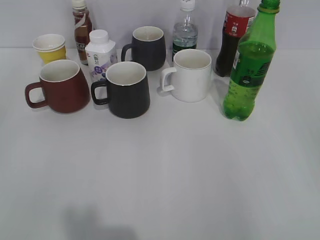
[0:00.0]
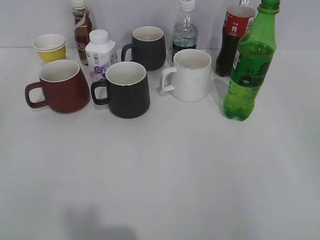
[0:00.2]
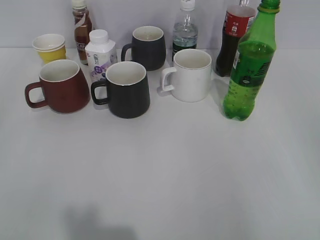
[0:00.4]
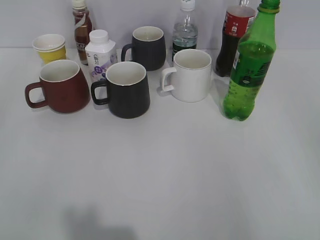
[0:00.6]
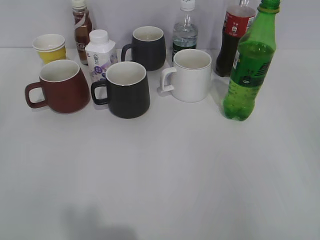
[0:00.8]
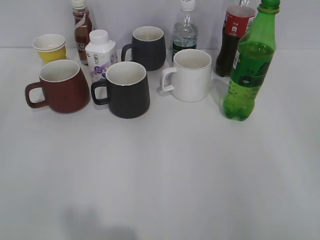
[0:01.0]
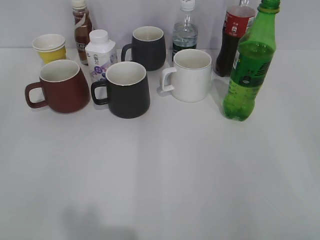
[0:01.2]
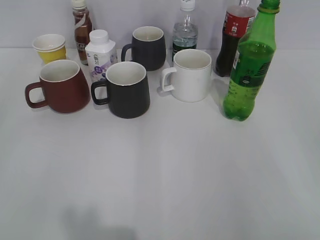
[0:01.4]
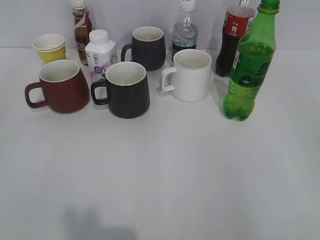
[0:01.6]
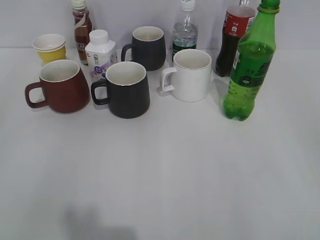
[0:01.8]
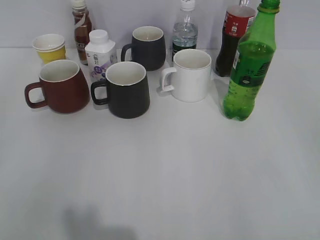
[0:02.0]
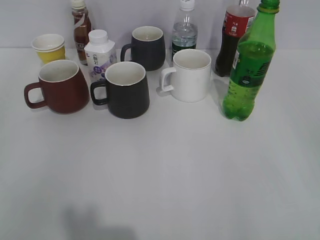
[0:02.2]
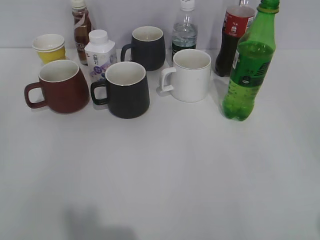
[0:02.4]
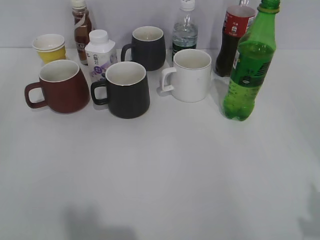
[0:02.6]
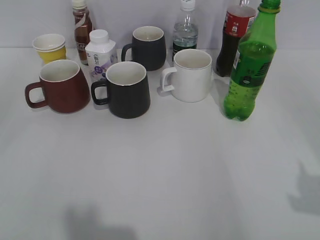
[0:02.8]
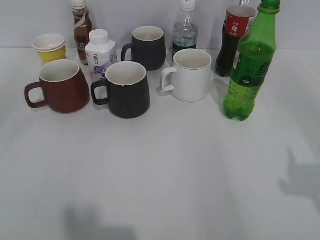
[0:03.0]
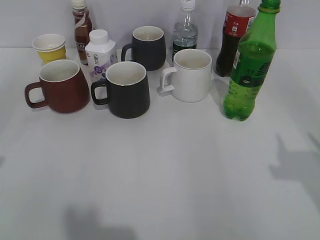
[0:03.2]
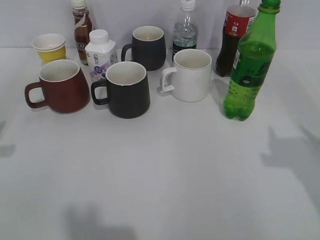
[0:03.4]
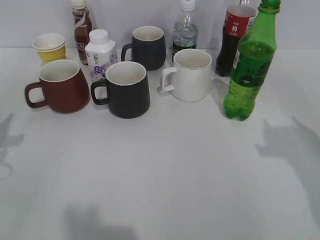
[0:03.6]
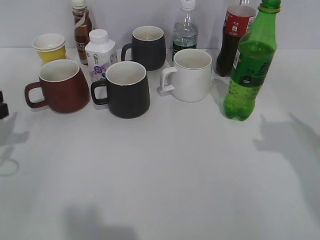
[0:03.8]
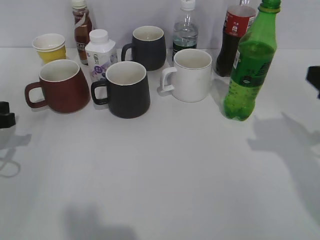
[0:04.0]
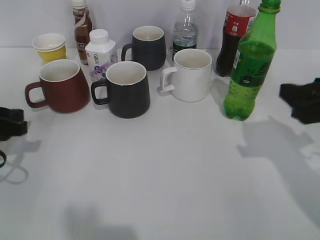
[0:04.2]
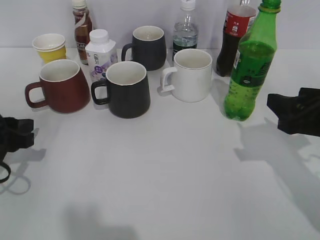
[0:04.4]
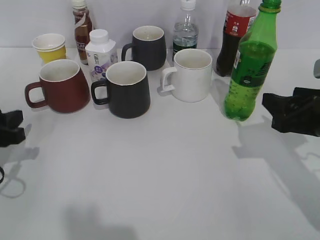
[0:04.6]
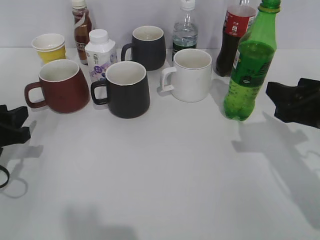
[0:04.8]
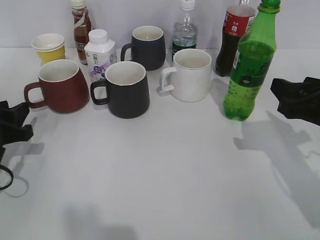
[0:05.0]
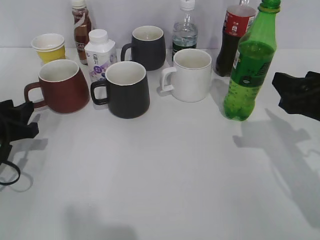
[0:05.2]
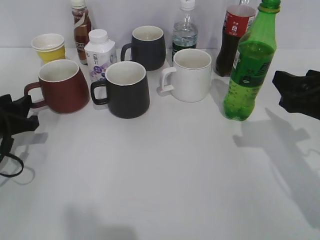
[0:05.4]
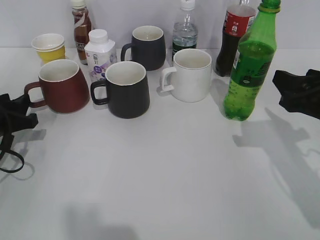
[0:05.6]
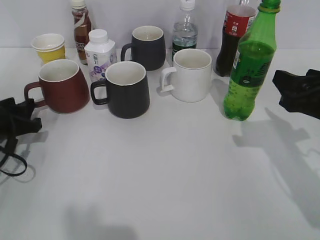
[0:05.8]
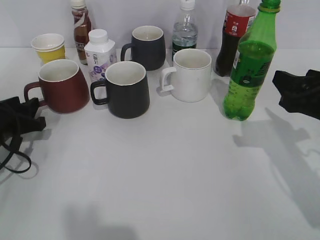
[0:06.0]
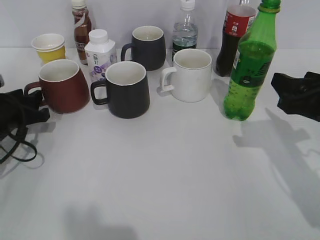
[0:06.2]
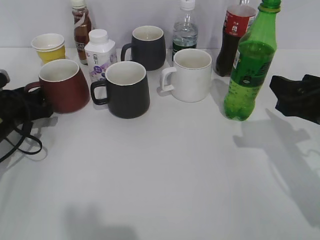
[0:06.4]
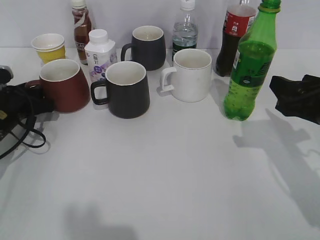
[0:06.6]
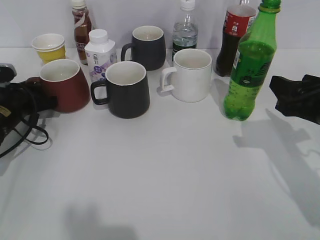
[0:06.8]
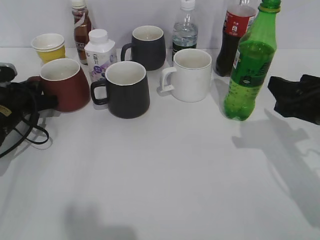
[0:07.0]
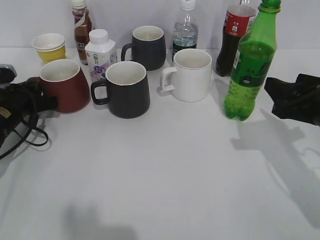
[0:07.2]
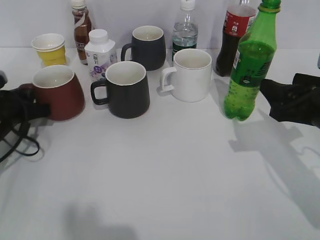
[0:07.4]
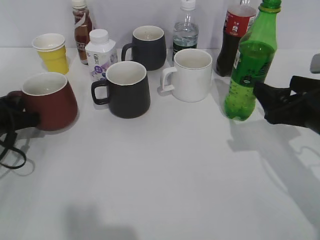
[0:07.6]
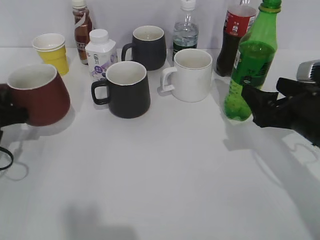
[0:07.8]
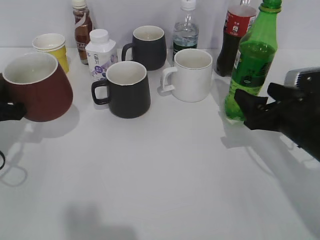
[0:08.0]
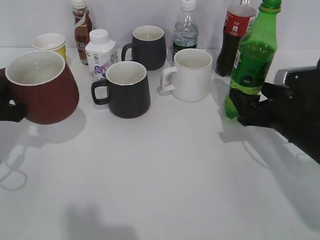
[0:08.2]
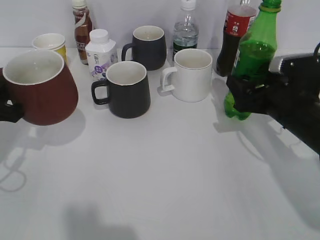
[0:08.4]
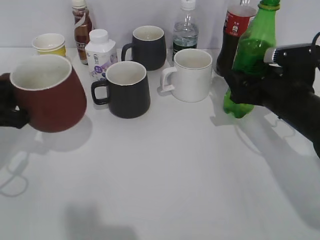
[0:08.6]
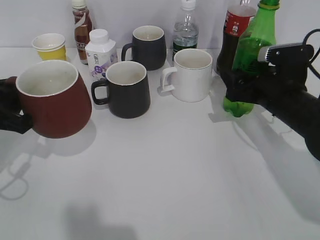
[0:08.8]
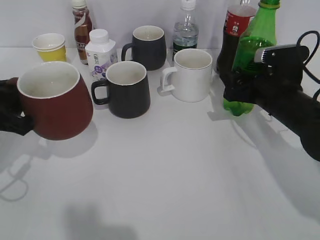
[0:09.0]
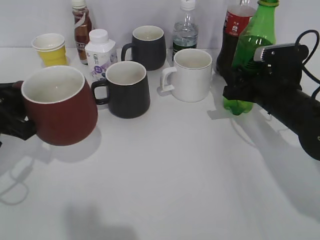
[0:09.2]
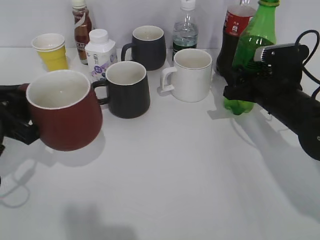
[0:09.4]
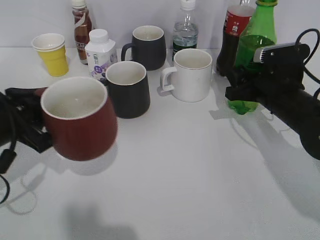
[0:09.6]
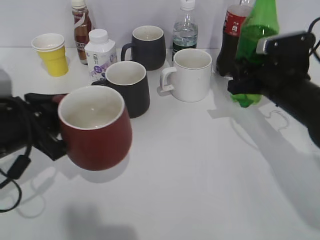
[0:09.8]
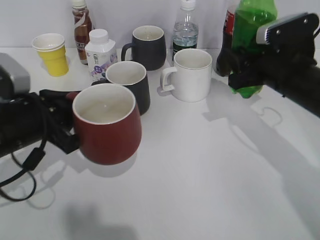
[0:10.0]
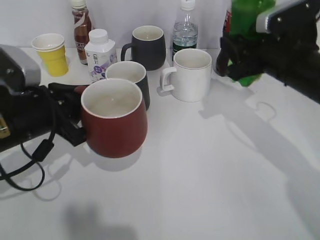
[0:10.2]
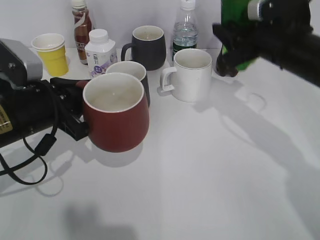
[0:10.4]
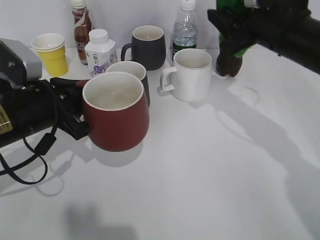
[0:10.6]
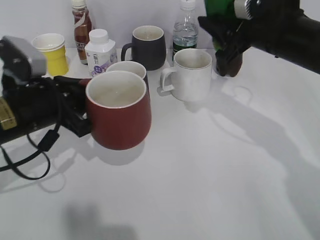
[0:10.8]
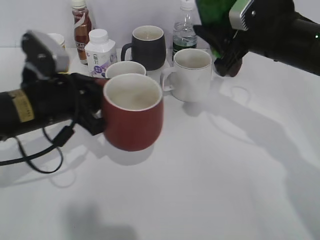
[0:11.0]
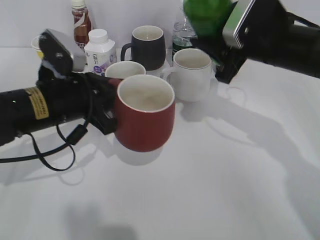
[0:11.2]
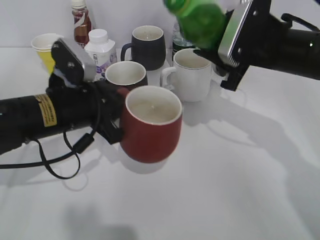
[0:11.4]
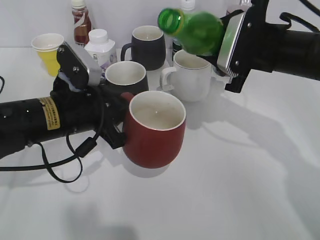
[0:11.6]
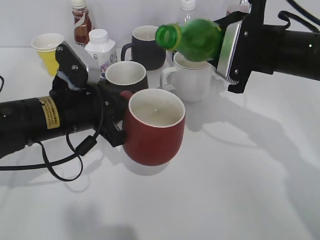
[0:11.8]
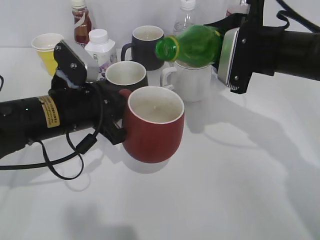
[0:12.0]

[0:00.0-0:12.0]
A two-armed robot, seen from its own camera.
Step, 0:02.0 to 0:05.2: Grasp the red cup with left gripper.
Step, 0:05.4 to 0:09.2: Grasp the bottle with sprite with right gripper.
0:01.6 to 0:03.0: The right gripper shifts about 10 cm forward.
0:03.0 to 0:04.4: The left gripper travels downward and forward by roughly 15 cm, and opens. Meanwhile the right gripper heads forward, downward and to the left, covering roughly 15 cm.
0:04.4 to 0:06.0: The left gripper shifts by roughly 5 cm.
0:06.0 to 0:07.6: The right gripper opens up; the left gripper closes.
0:07.6 to 0:09.0: The right gripper moves forward, about 10 cm, and closes up; the left gripper moves upward and backward, roughly 10 cm.
0:09.0 to 0:10.4: The right gripper travels upward by roughly 10 cm, and closes; the left gripper heads to the right, covering about 5 cm.
0:10.4 to 0:12.0: The left gripper goes roughly 5 cm to the right.

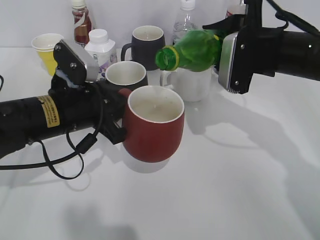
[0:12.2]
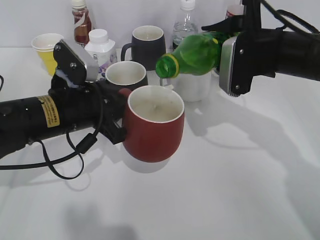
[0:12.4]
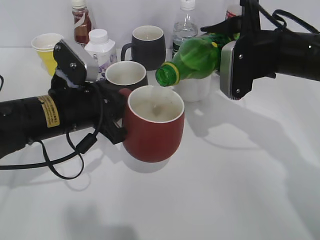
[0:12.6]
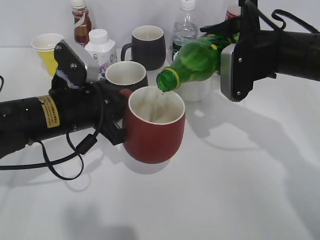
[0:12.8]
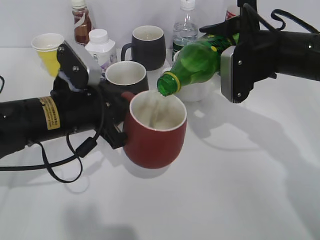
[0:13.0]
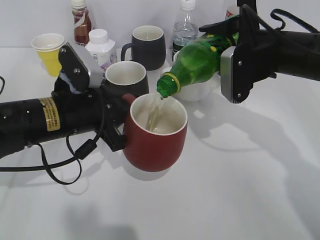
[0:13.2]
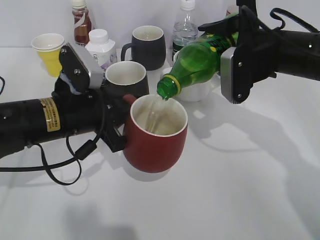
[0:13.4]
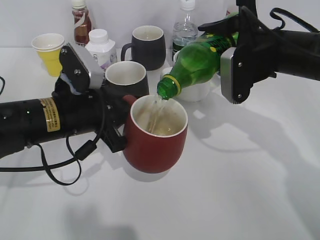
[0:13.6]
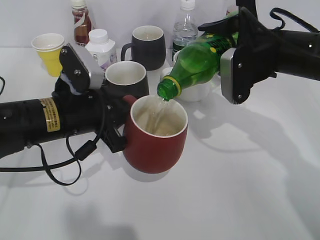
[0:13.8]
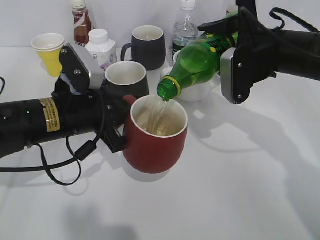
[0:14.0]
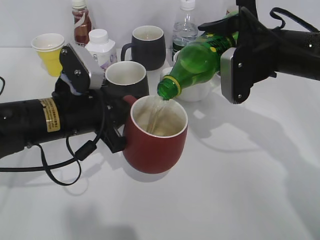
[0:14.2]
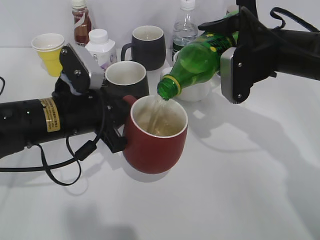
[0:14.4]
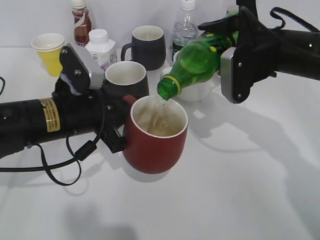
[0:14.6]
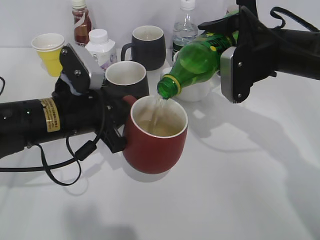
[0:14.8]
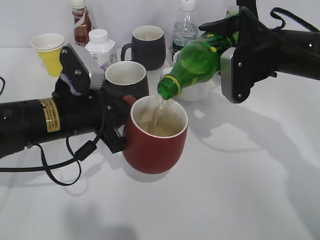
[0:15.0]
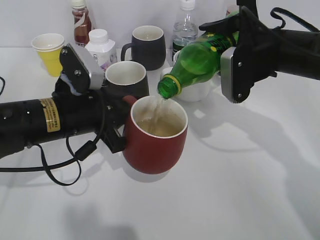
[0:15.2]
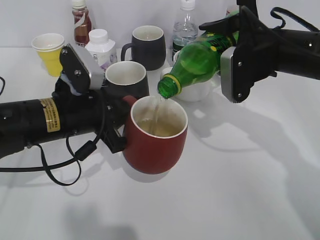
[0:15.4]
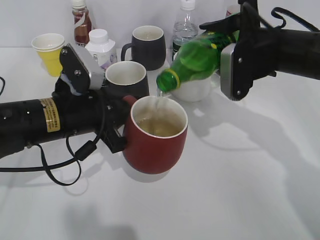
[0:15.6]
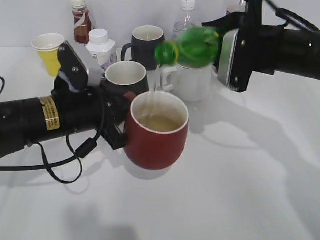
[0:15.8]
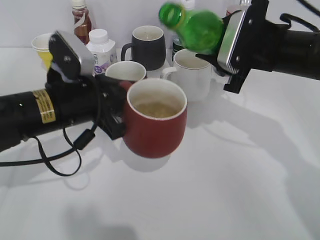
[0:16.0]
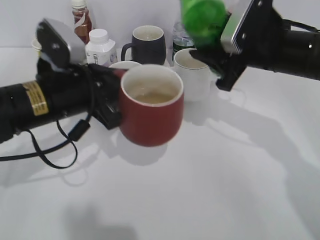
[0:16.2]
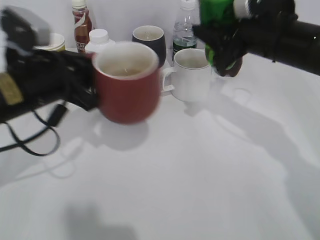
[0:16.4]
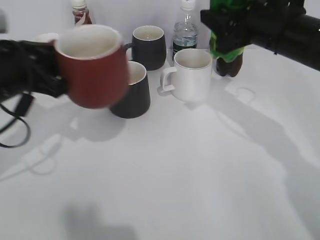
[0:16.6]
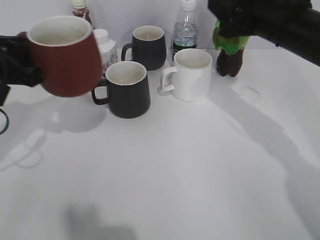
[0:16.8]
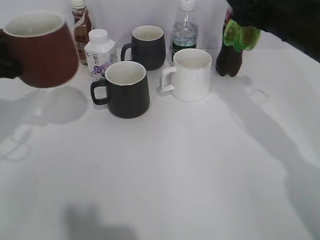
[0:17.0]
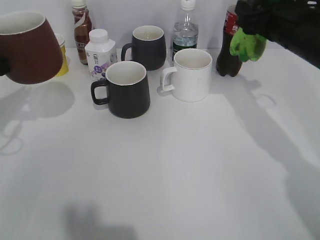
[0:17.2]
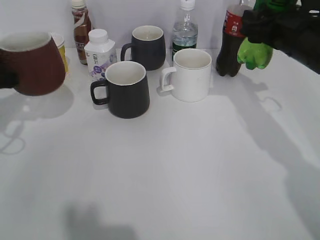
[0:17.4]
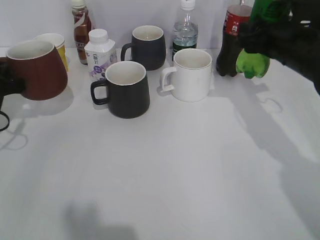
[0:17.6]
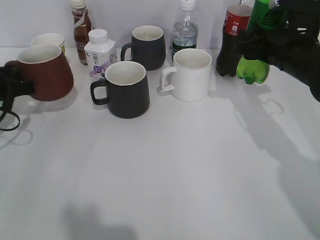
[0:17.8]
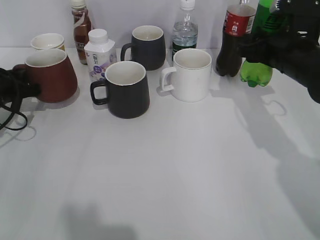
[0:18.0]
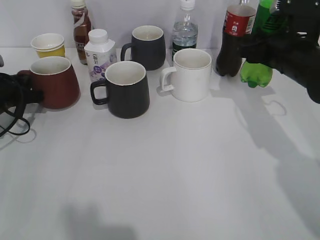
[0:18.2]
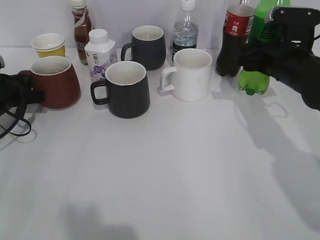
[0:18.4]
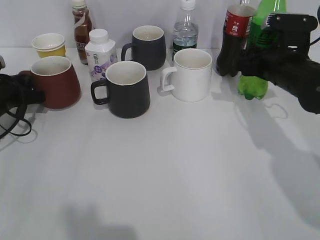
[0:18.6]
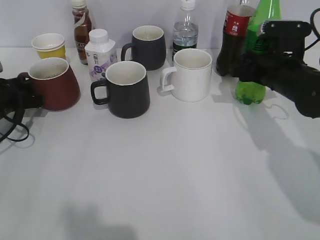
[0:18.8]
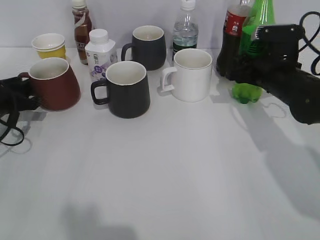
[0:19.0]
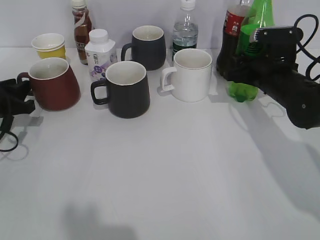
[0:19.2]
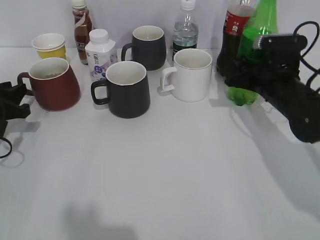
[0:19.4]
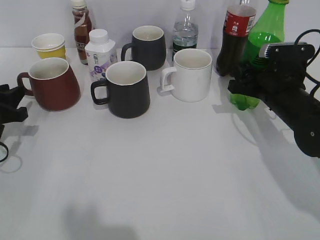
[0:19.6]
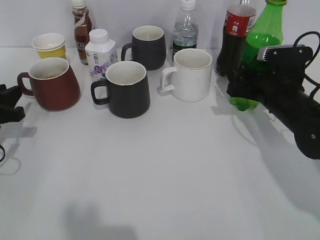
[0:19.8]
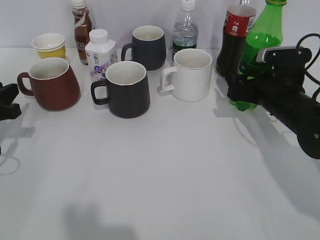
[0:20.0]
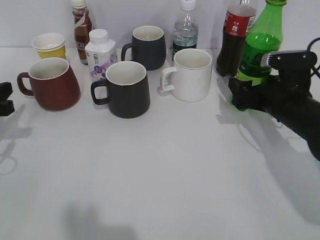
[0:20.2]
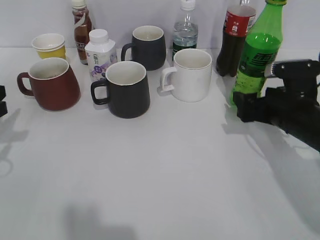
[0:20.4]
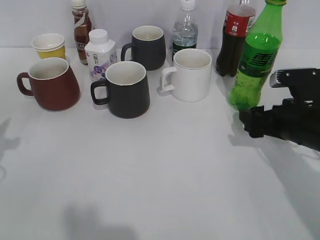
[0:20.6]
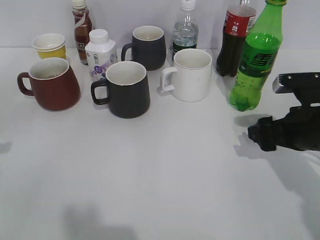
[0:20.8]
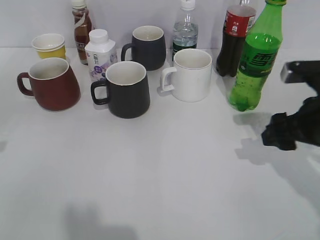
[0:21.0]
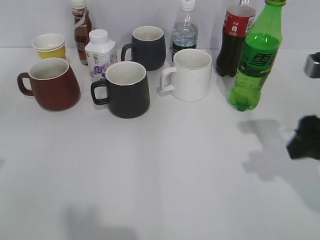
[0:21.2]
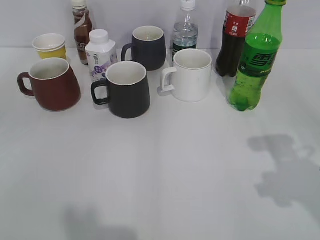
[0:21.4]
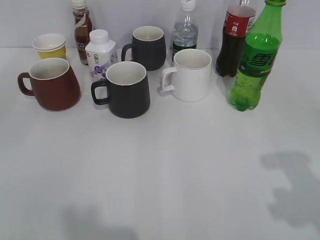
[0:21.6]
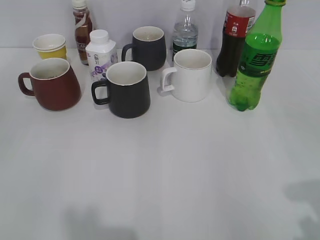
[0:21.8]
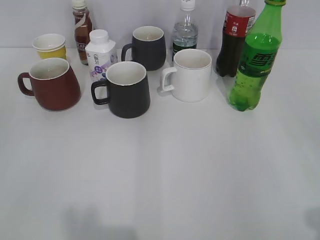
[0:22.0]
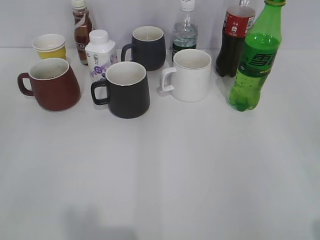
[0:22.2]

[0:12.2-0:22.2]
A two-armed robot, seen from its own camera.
Step, 0:12.2 to 0:15.8: Pour the sprite from bottle to cup with right gripper.
Step, 0:16.0 to 0:16.6: Place the black cup on the table with left gripper.
Step, 0:16.8 to 0:20.2: Place the sprite bottle on the table with right gripper.
0:12.2 to 0:13.6: There are only small adjustments of the grippers.
0:13.6 to 0:15.0: Both grippers stay put.
0:15.0 to 0:16.4: The left gripper ends up roughly 5 cm from where it was.
0:16.4 to 0:18.0: The right gripper ends up approximately 5 cm from where it was. The left gripper heads to the left, forward and downward, covering some 20 cm.
0:18.0 to 0:19.4: The left gripper heads backward, covering approximately 5 cm, and opens up; the right gripper shifts roughly 5 cm downward.
0:19.4 to 0:20.8: The left gripper is displaced upward and backward by some 10 cm; the right gripper travels backward by about 10 cm, and opens its fingers.
0:20.8 to 0:22.2: The right gripper travels backward and upward by about 25 cm.
